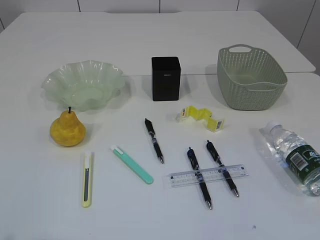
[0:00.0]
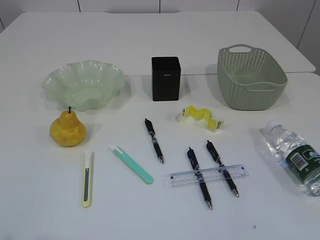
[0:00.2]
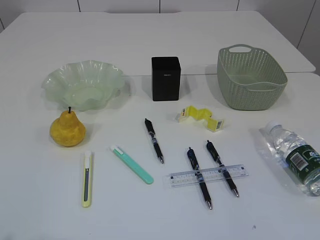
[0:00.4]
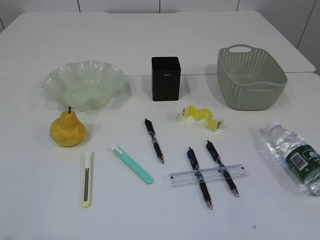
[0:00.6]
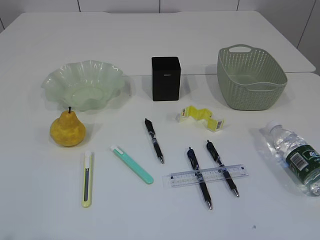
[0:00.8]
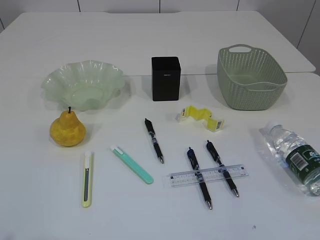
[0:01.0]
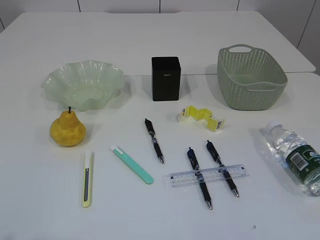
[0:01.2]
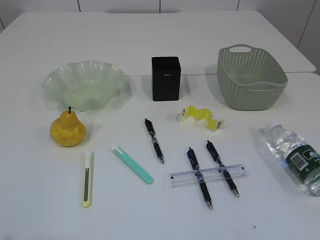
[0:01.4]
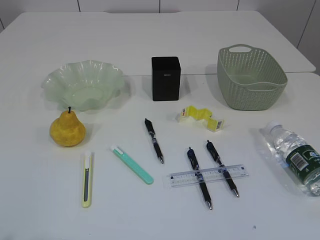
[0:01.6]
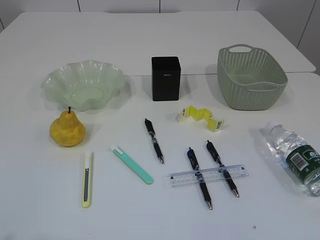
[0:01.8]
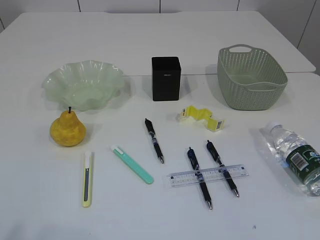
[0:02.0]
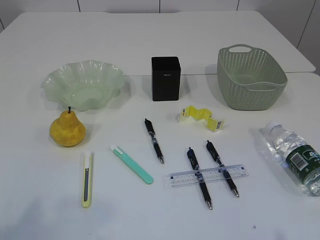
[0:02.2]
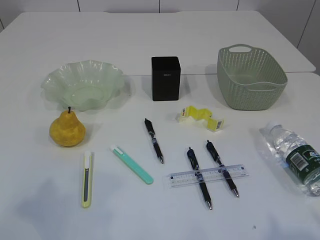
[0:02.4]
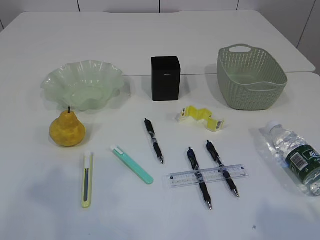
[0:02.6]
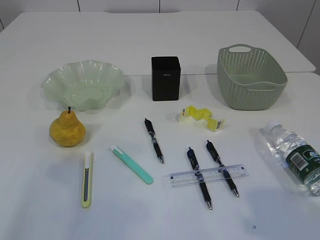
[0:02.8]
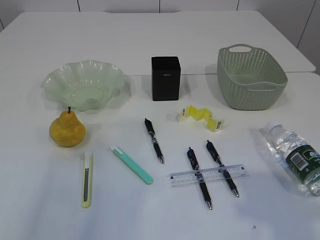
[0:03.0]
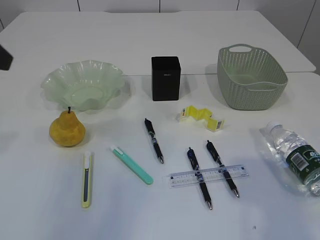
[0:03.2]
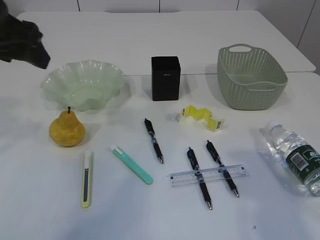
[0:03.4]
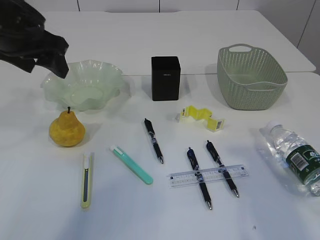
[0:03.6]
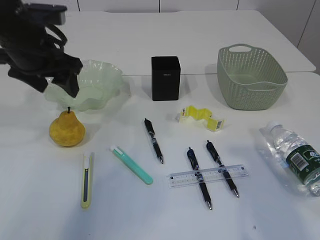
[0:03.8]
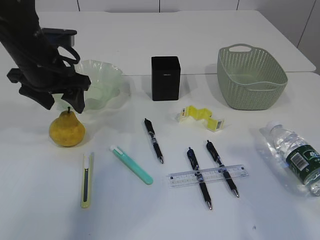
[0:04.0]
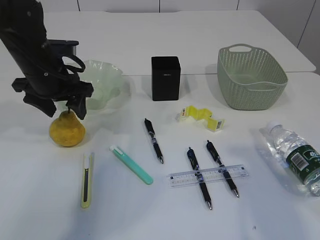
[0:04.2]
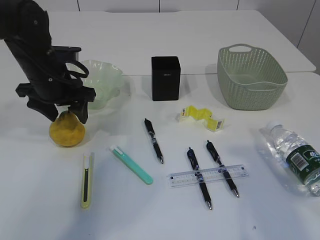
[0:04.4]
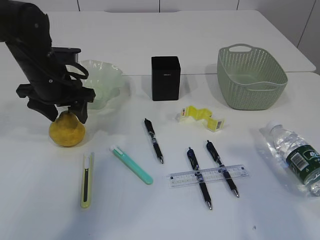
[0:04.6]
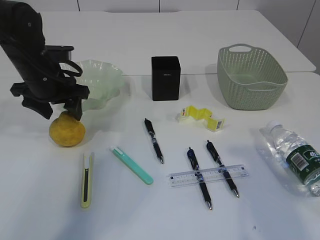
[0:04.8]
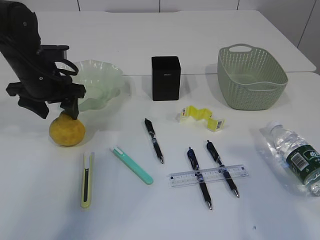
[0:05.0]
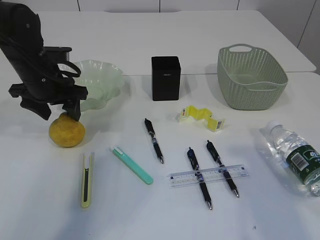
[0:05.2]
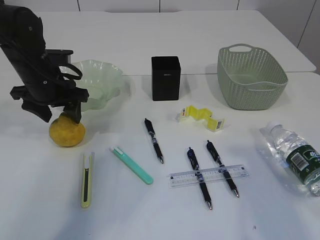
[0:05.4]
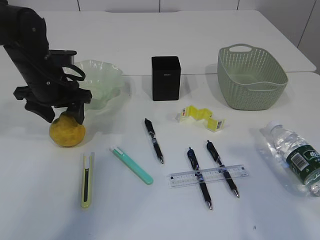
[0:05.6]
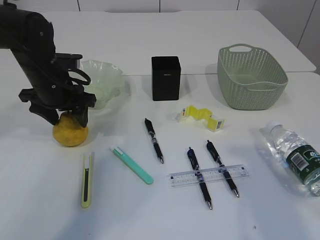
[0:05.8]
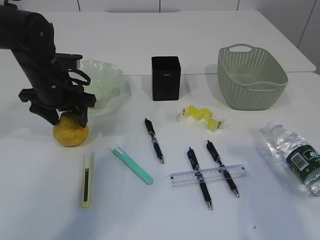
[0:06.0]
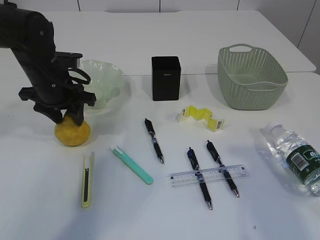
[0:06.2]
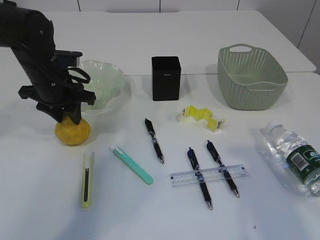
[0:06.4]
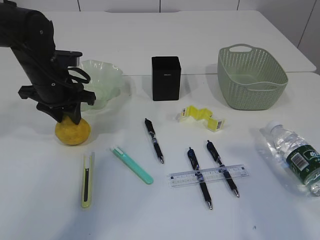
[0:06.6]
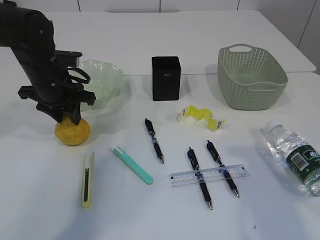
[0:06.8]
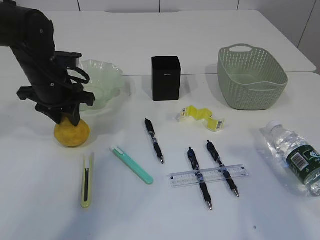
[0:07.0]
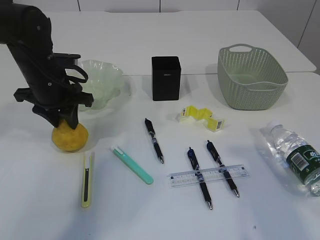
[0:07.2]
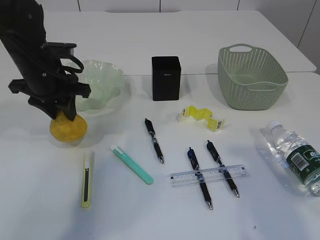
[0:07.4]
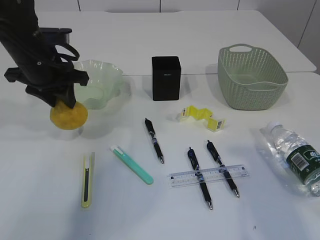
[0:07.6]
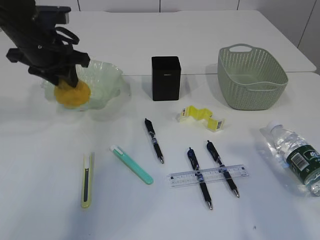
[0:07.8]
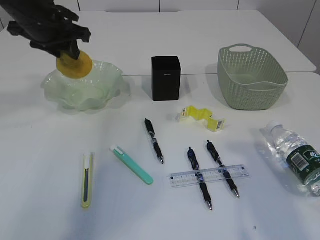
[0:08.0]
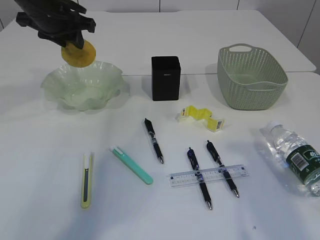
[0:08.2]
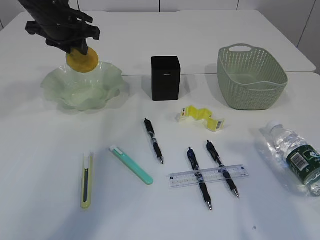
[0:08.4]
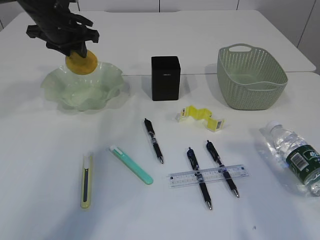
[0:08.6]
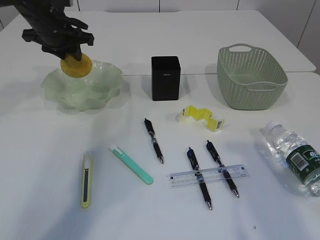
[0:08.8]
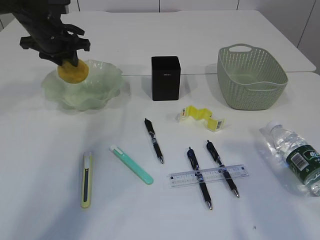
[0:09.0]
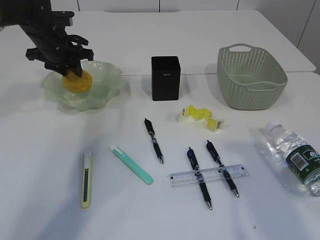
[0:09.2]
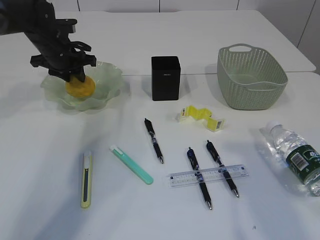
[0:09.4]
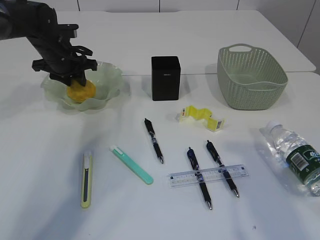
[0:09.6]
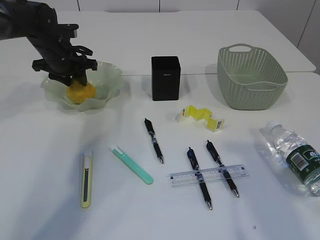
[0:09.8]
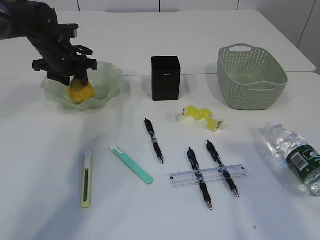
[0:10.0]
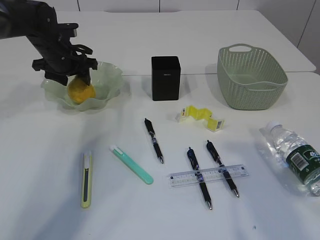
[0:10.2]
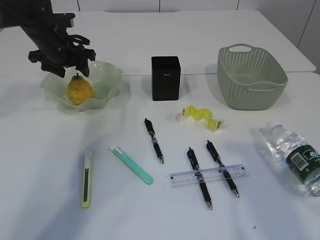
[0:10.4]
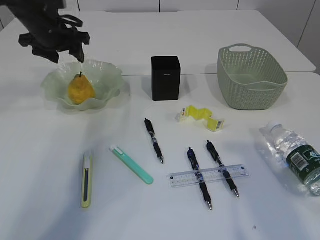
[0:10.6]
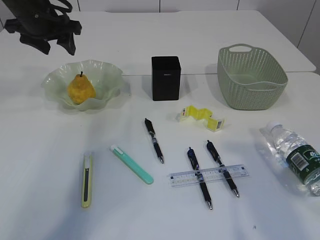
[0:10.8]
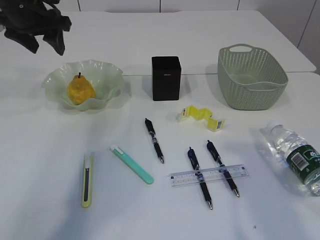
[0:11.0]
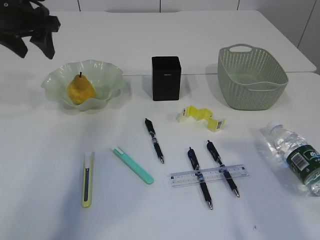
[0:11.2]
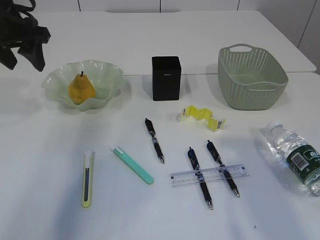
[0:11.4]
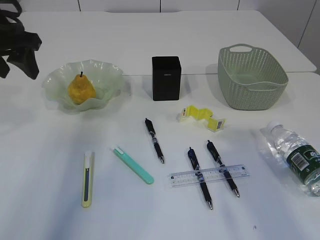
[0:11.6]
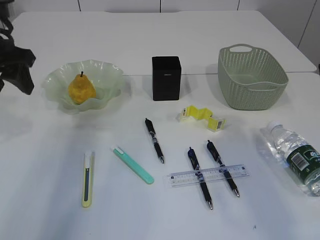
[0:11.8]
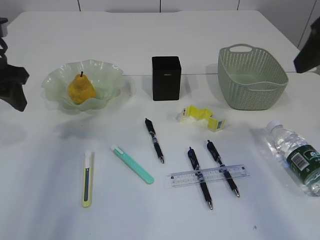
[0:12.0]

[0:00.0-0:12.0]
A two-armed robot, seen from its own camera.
Step, 0:07.4 to 0:12.0: Place the pear in the plate.
0:01.6 to 0:03.0: The right gripper heads forward and upward, covering some 15 cm. Meanwhile the left gripper travels forward by roughly 20 cm.
0:03.0 to 0:04.4: The left gripper shifts some 25 cm forward, downward and to the right.
0:04.4 to 0:06.0: There are only small adjustments of the grippers.
0:06.0 to 0:07.6: The left gripper shifts some 5 cm upward, and closes.
0:07.6 to 0:09.0: The left gripper moves forward, about 10 cm.
0:09.0 to 0:10.4: The left gripper opens up.
0:10.4 to 0:12.0: The left gripper is displaced backward and upward by some 20 cm; the right gripper is displaced forward by approximately 10 cm.

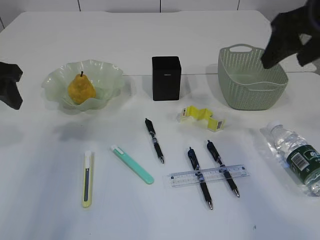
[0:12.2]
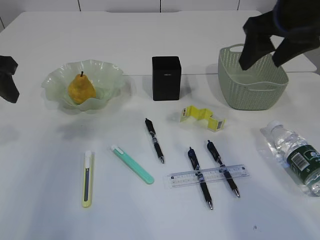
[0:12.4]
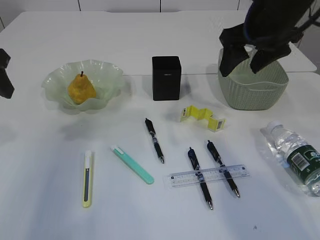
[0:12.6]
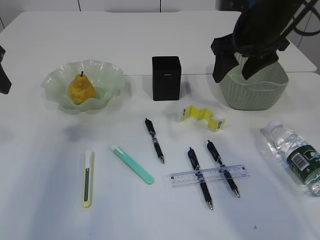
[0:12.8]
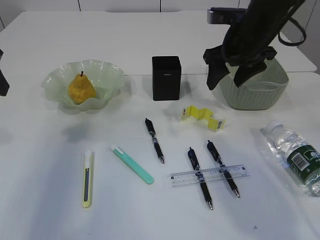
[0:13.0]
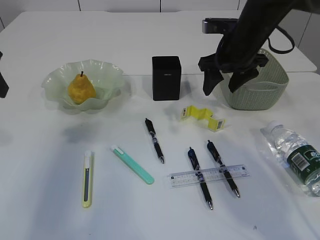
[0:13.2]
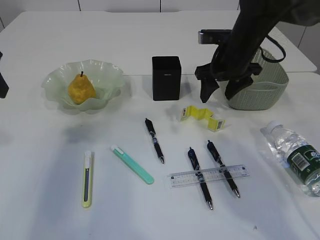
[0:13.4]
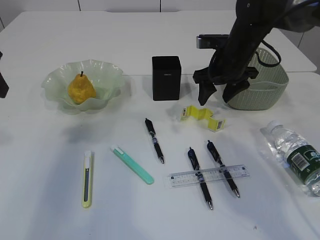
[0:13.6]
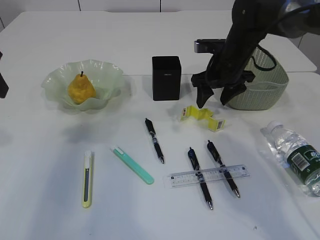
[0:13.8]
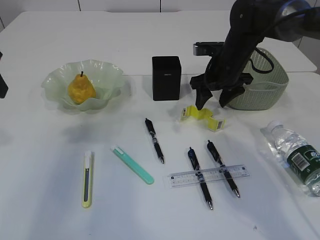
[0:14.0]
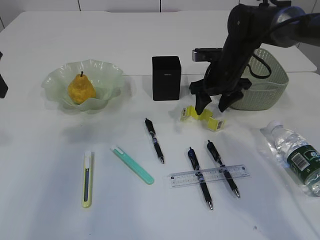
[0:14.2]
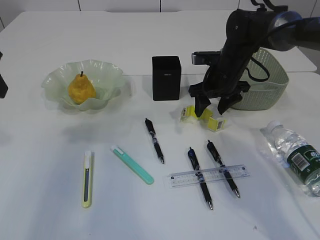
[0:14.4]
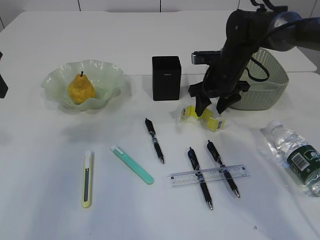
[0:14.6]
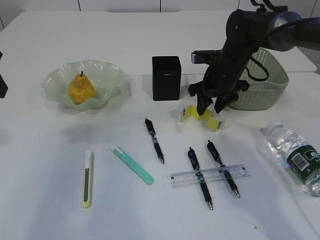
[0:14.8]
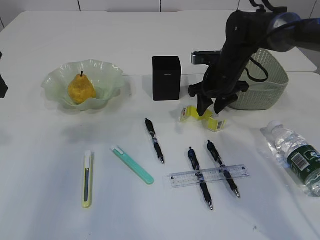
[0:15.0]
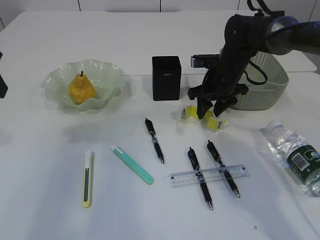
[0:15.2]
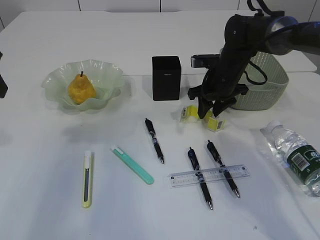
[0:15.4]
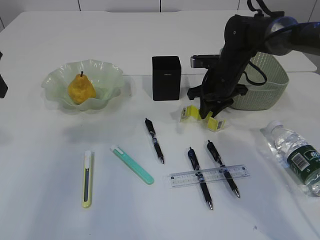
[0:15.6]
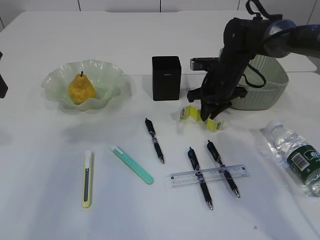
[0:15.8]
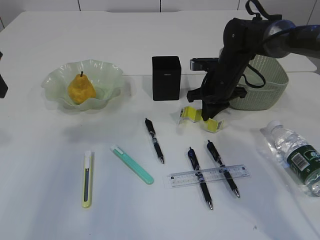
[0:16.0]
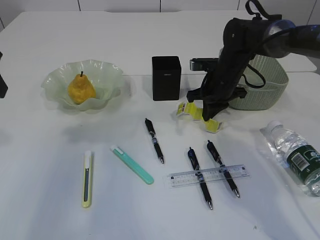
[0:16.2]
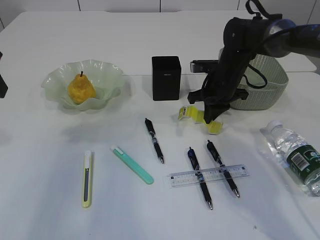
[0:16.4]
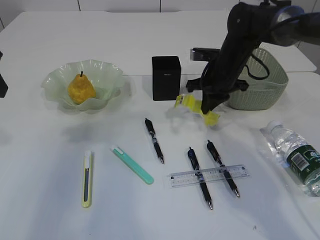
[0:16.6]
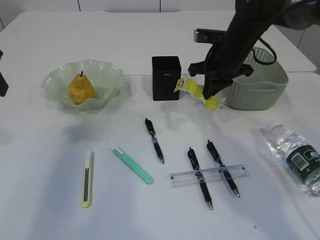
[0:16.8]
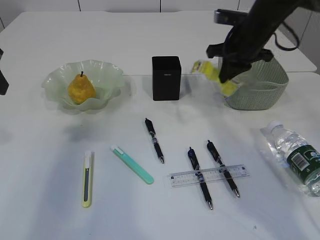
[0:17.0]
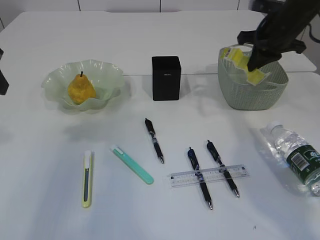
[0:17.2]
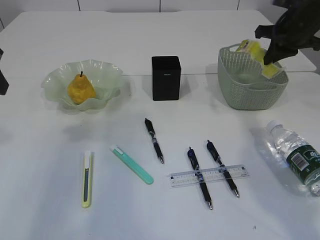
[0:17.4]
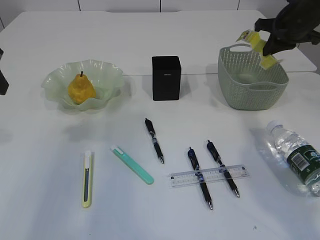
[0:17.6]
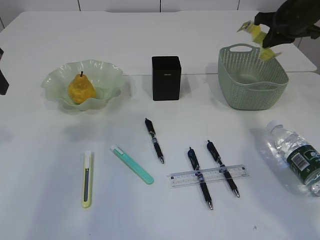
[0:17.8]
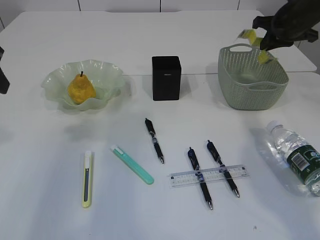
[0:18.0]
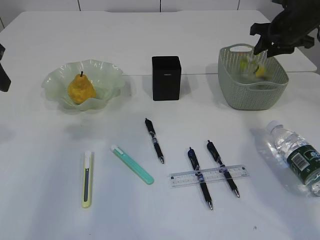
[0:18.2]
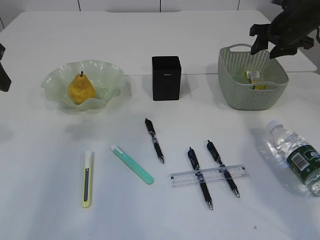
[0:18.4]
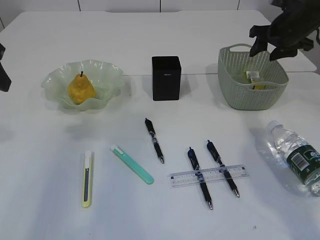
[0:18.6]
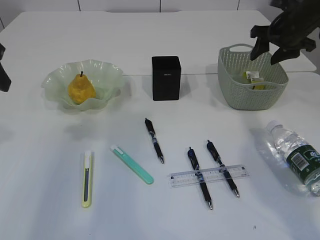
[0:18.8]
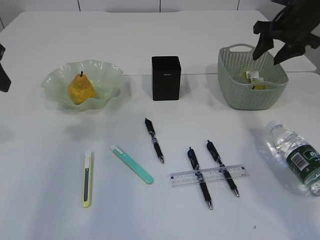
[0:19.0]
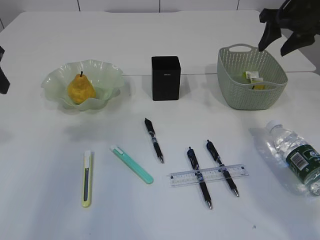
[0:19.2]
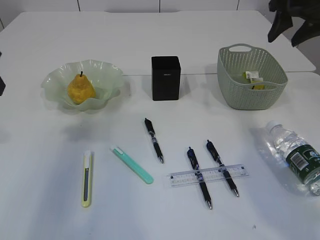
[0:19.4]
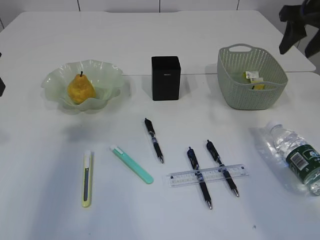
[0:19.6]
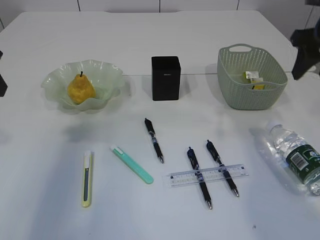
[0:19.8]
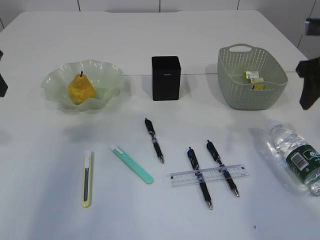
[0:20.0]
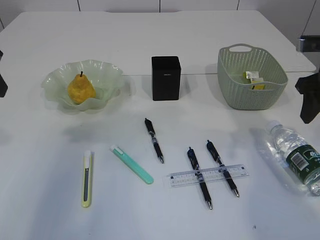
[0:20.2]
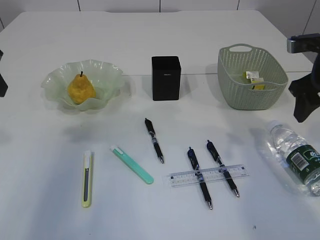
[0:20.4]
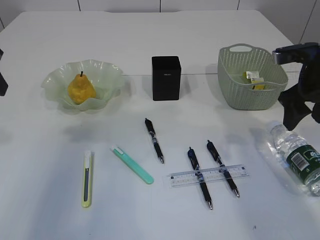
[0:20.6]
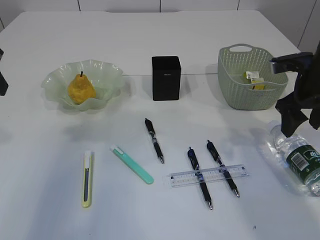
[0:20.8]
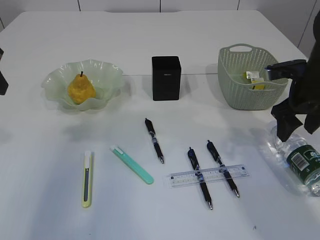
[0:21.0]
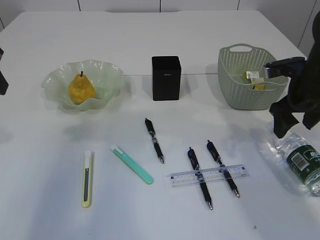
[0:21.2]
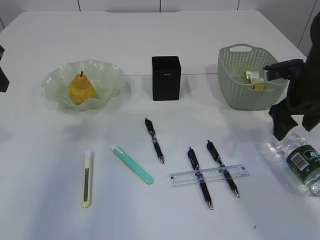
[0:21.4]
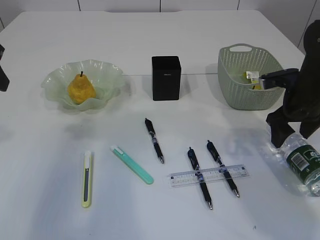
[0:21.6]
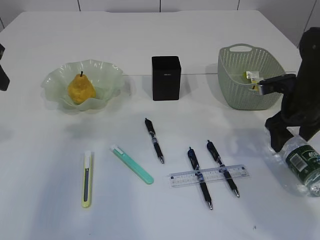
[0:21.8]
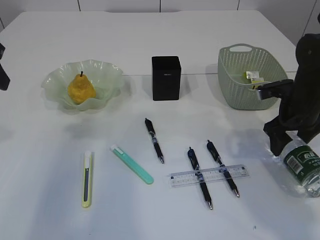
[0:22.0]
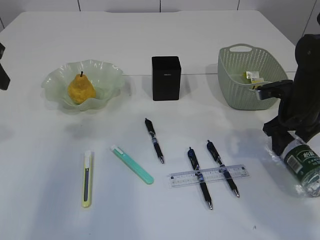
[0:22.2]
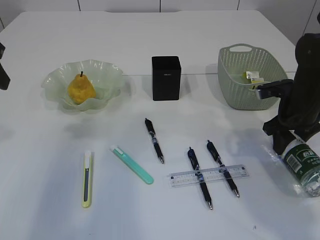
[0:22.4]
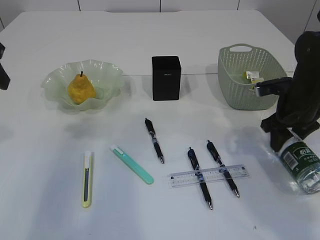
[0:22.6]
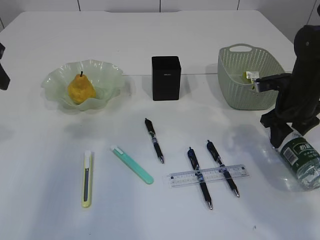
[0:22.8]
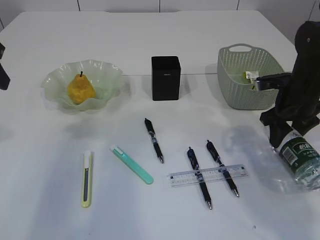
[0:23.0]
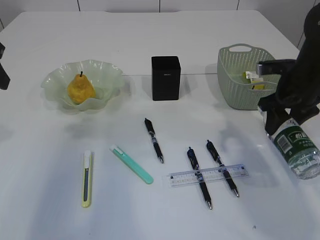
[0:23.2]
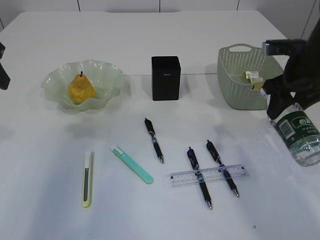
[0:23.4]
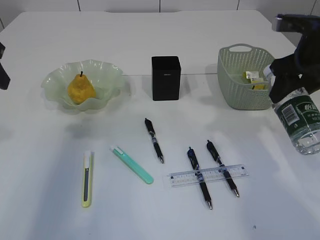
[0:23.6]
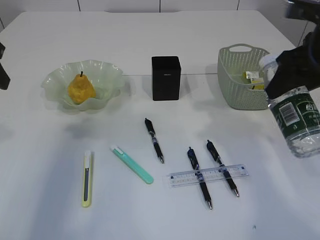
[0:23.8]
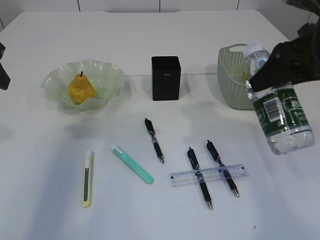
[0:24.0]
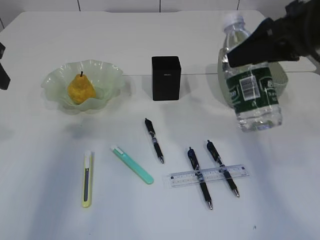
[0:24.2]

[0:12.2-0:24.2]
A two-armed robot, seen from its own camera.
Step, 0:12.2 to 0:16.6: Pick up the waste paper.
Step, 0:16.8 to 0:18.8: Place the waste paper in the basket.
Step, 0:19.0 to 0:23.6: Pick up the bottle with the right arm.
0:12.2 to 0:13.8: The right gripper moves forward and downward, some 25 cm. Meanwhile the left gripper changes place by about 5 cm.
0:13.8 to 0:15.2: The grippers make only small movements.
0:15.2 to 0:16.6: The right gripper closes its fingers.
0:16.6 to 0:18.2: The right gripper shifts roughly 15 cm to the right and upward, and opens up.
0:18.2 to 0:19.8: The right gripper goes approximately 15 cm backward and upward.
0:19.8 to 0:21.2: The right gripper travels downward by approximately 10 cm.
0:21.2 to 0:22.6: The right gripper closes its fingers.
0:22.6 to 0:24.2: The right gripper is displaced upward and backward by approximately 20 cm.
